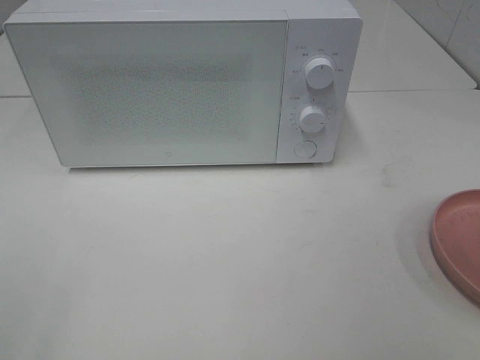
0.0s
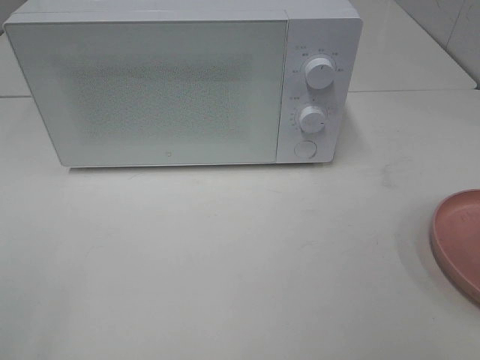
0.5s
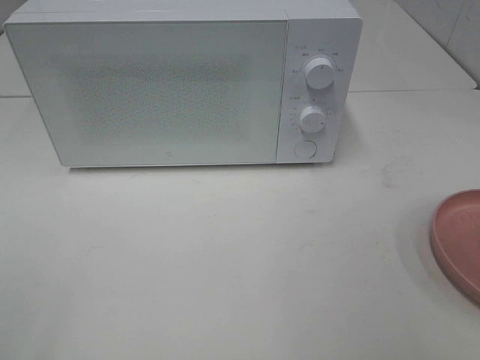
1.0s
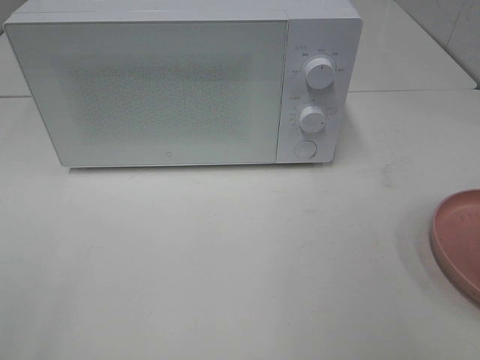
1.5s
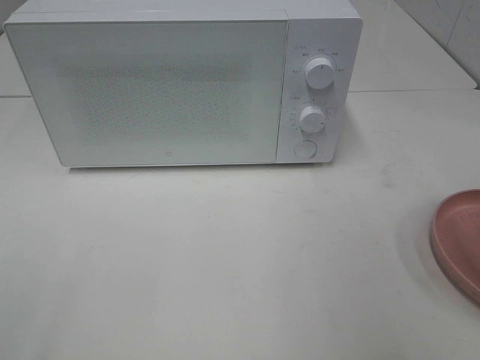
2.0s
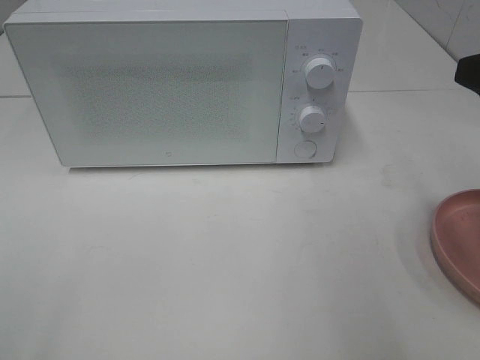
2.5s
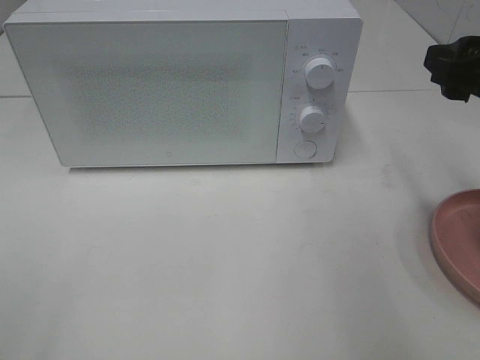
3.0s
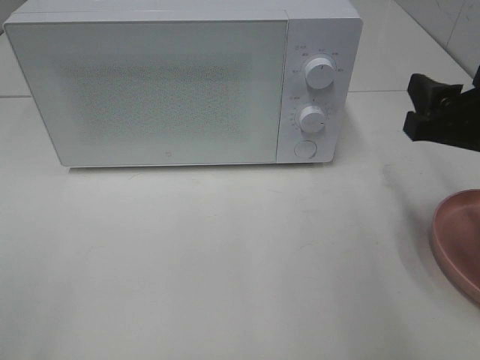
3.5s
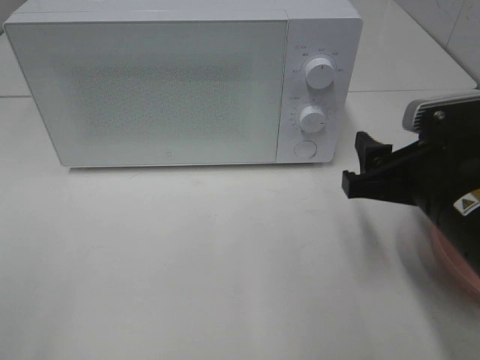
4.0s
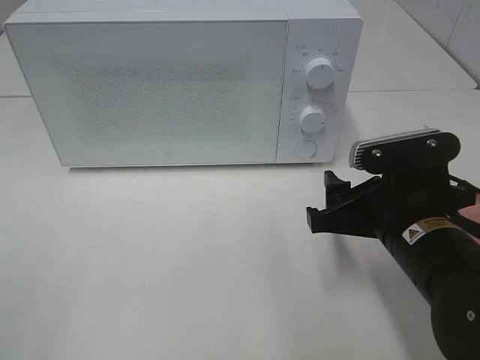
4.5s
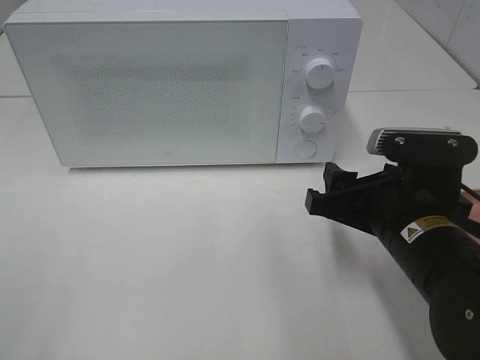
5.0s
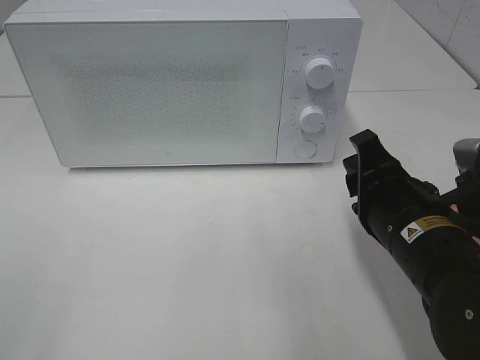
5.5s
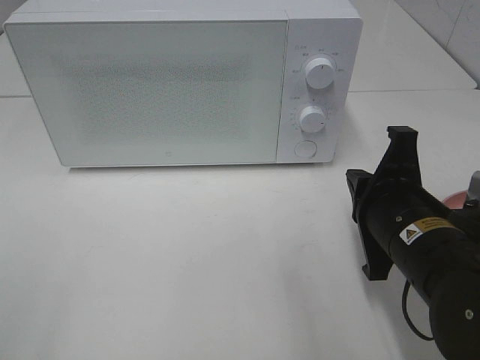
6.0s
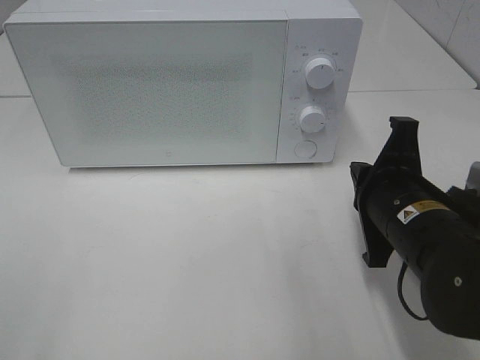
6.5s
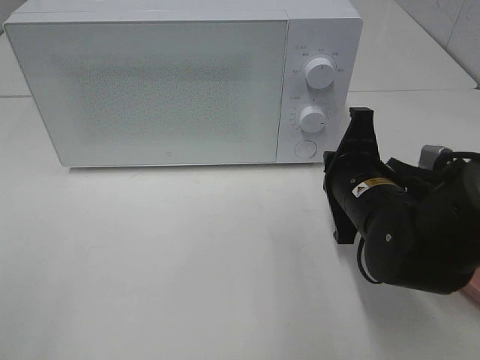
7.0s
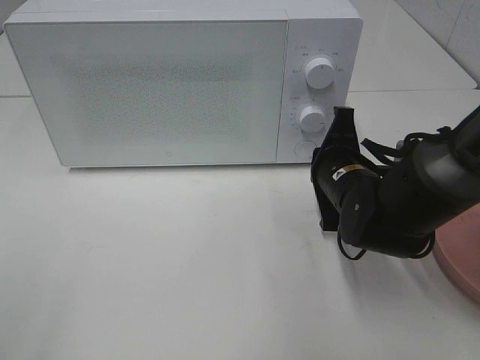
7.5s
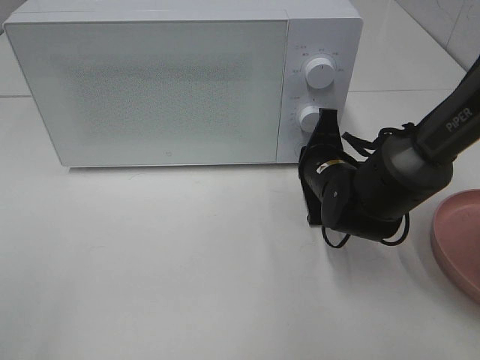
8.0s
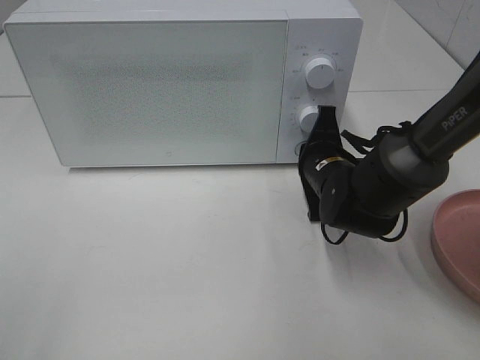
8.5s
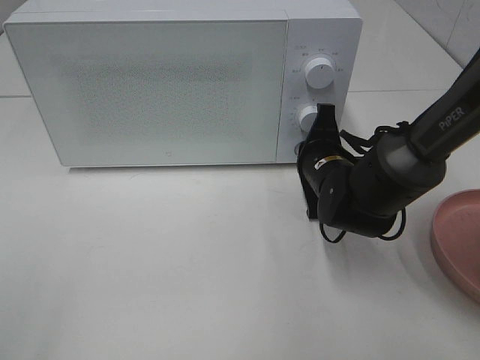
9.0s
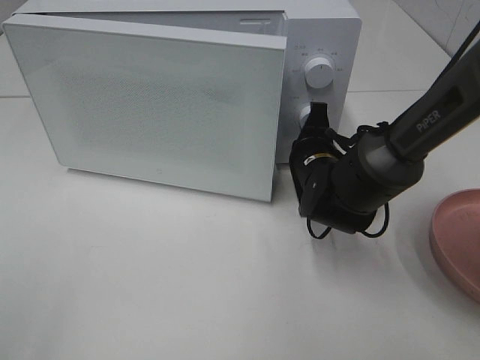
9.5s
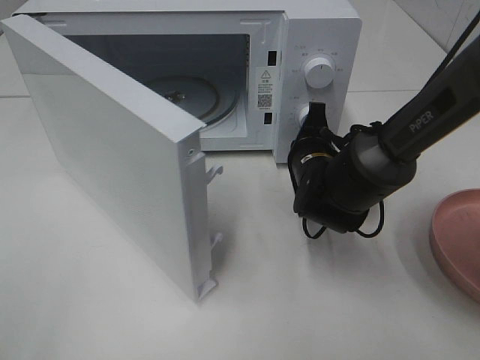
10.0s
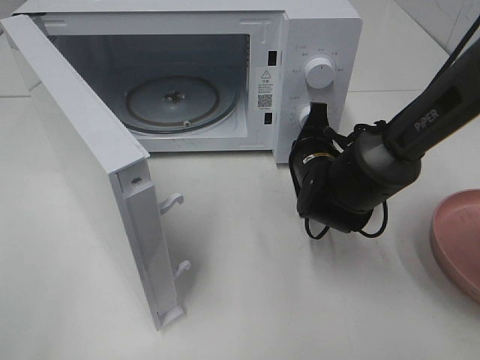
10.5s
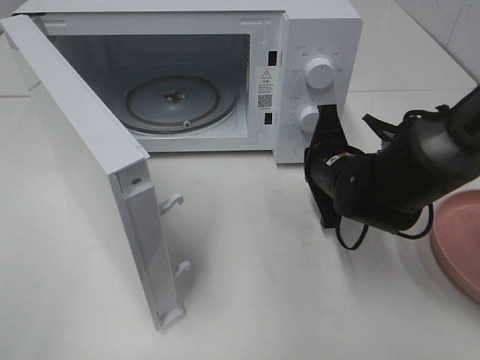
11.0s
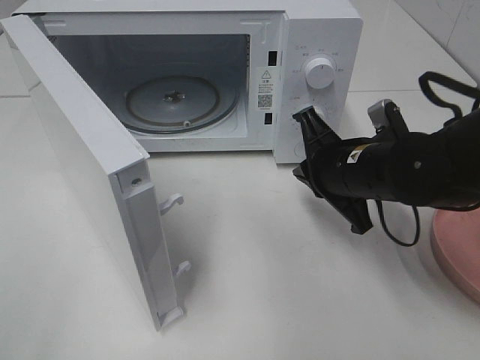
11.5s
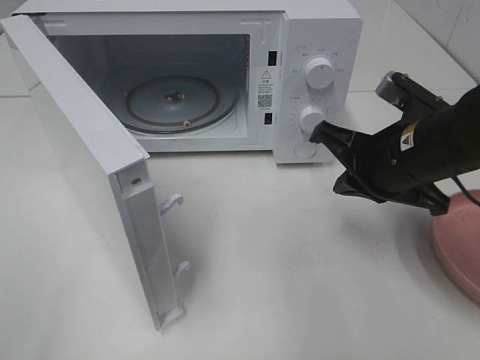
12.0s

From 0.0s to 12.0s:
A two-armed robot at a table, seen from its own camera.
Task of the whole recording: Heat the burger.
Step, from 0.0s to 11.0s: Right hand: press the switch.
From 2.0s to 4.0s: The right gripper moves downward, to the left and forward, about 15 cm.
From 4.0s to 6.0s: The right gripper closes.
From 6.0s to 8.0s: The right gripper shifts roughly 15 cm forward and downward.
From 10.0s to 12.0s: The right gripper heads upward, backward and to the right, covering about 15 cm.

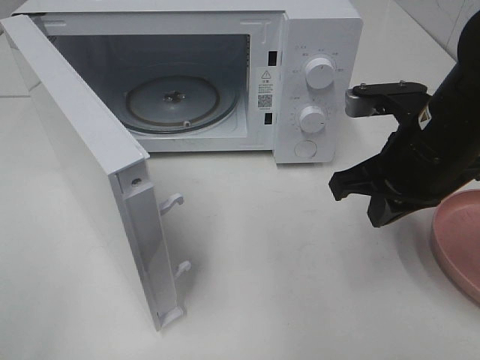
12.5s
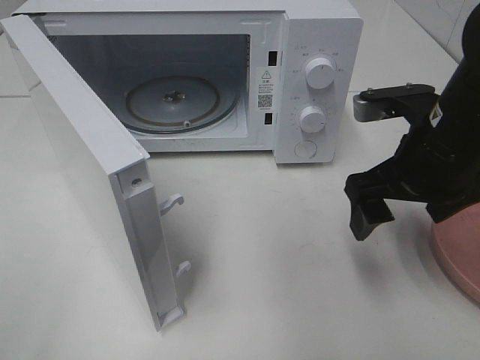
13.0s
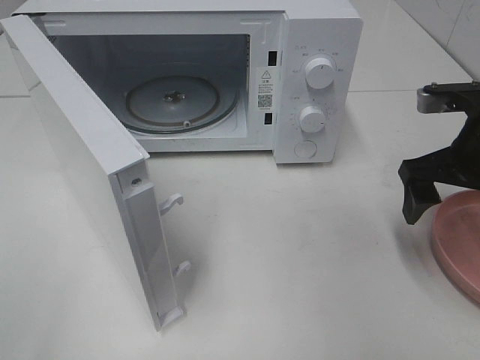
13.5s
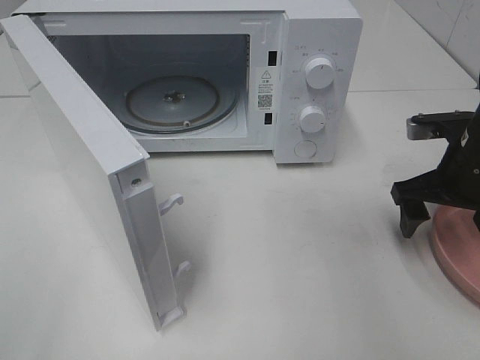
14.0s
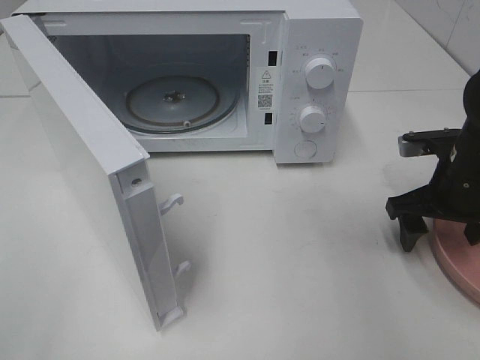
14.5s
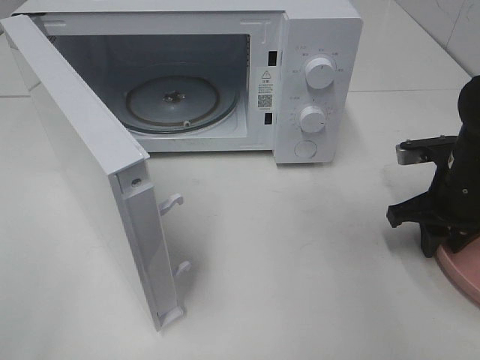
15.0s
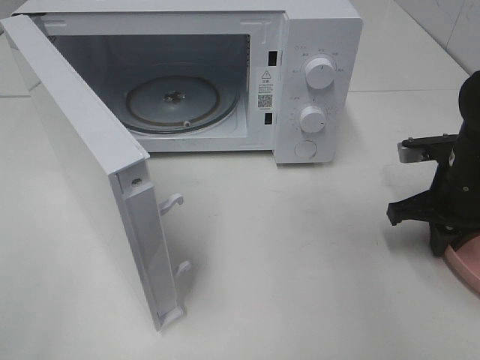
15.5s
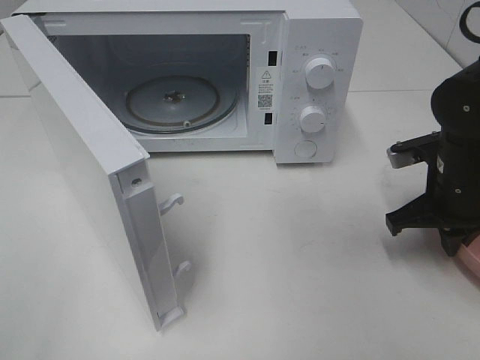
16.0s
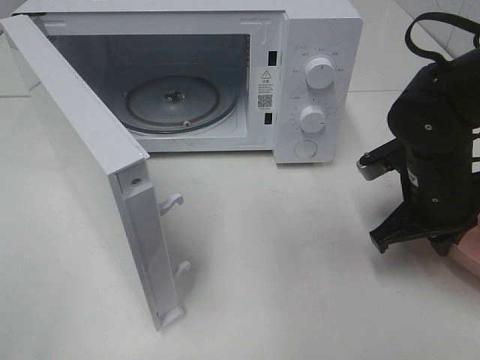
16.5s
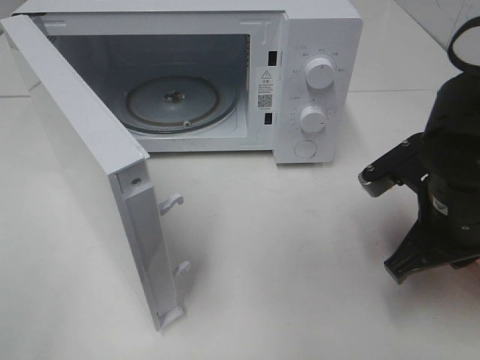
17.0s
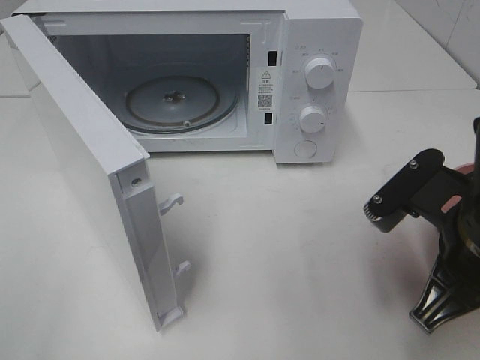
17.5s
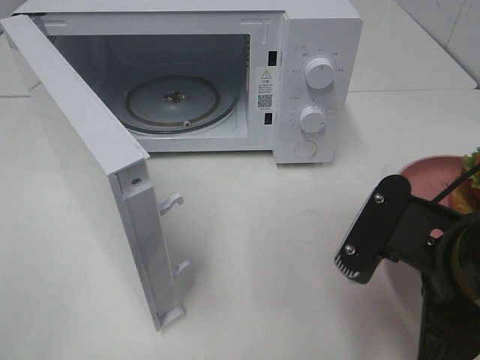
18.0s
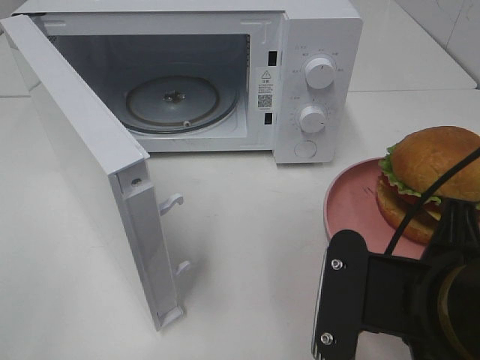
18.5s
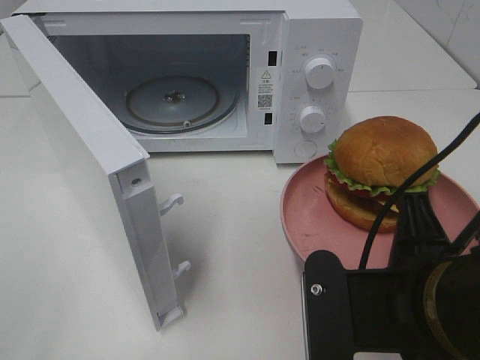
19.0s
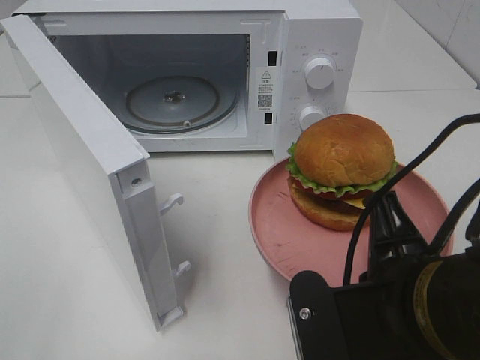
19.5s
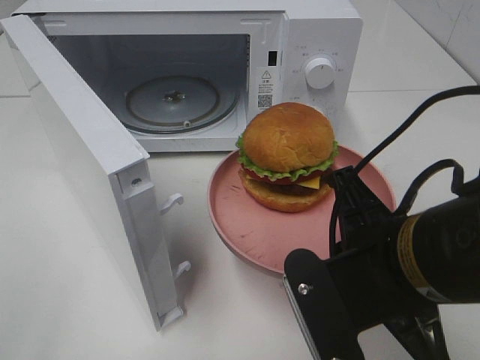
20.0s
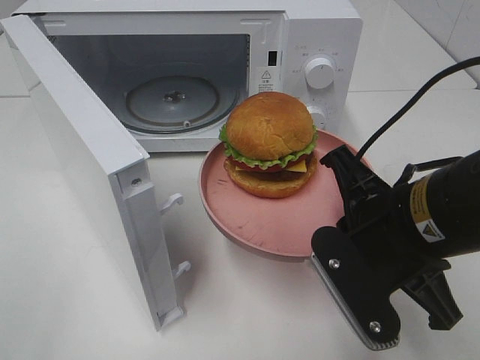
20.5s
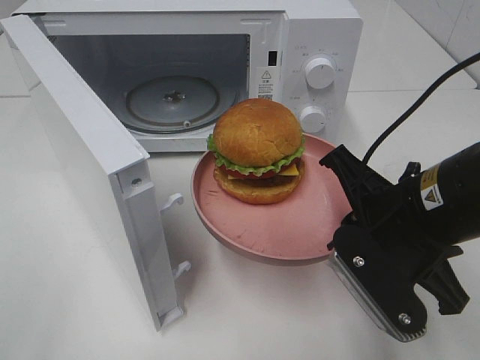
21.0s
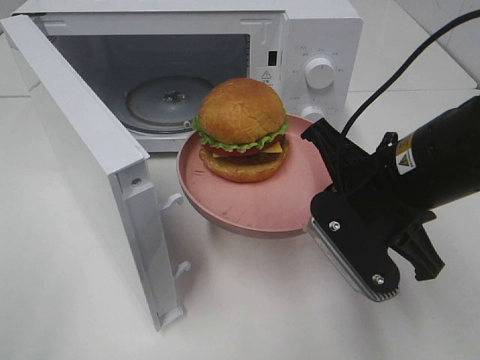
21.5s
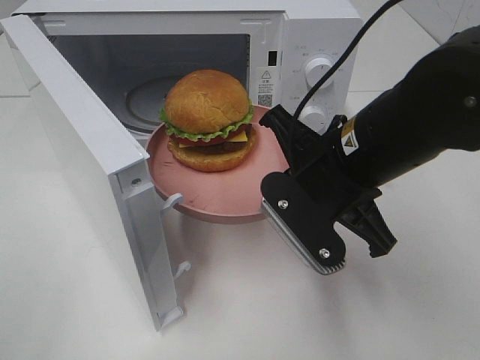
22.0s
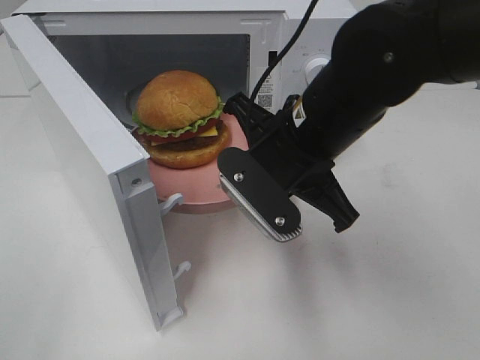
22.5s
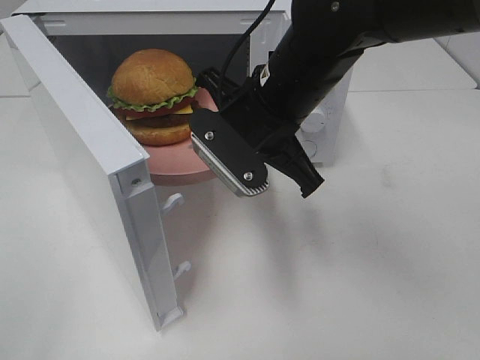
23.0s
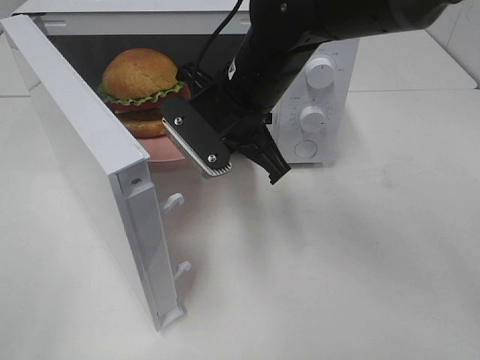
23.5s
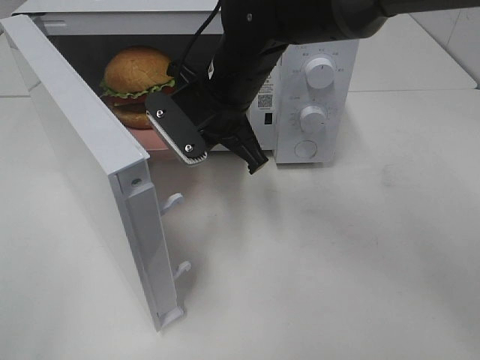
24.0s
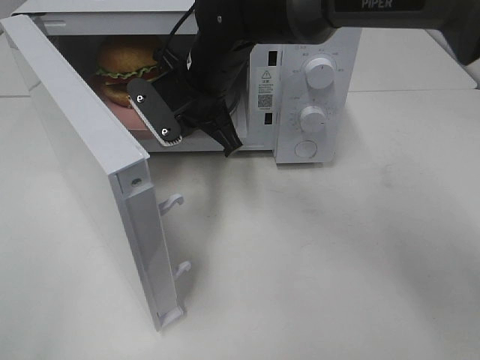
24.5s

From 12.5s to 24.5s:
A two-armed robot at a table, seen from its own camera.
Task of the whole recording: Heat the burger.
Step, from 12.5s to 16.0s: Right hand: grab the plate with the hamburger.
From 12.5s to 14.5s: The right gripper travels to the right and downward by roughly 10 cm, and opens.
From 14.5s to 16.5s: The right gripper heads to the left, covering about 5 cm, and closes its fingers.
From 16.5s to 18.5s: The right gripper is displaced backward and to the left by approximately 20 cm.
From 18.5s to 20.5s: The right gripper shifts approximately 10 cm forward.
From 20.5s to 22.5s: The right gripper shifts about 10 cm forward and to the left.
From 22.5s to 24.5s: The right gripper goes approximately 15 cm forward and to the left.

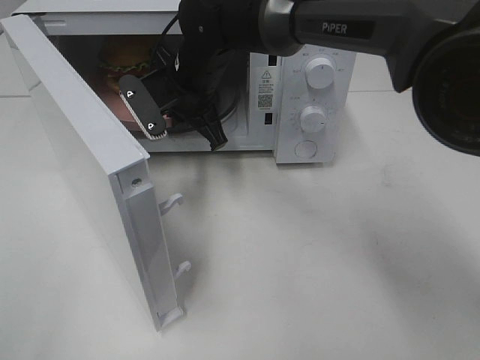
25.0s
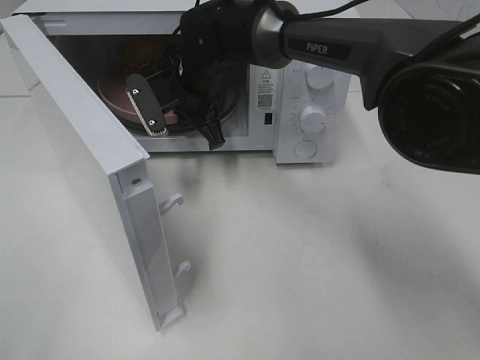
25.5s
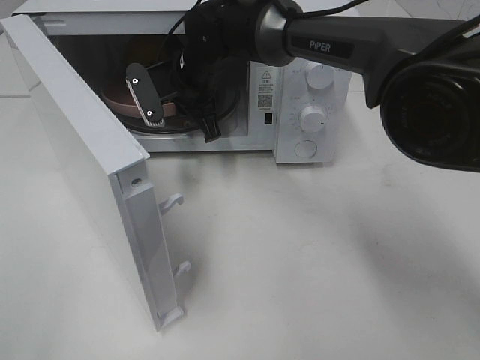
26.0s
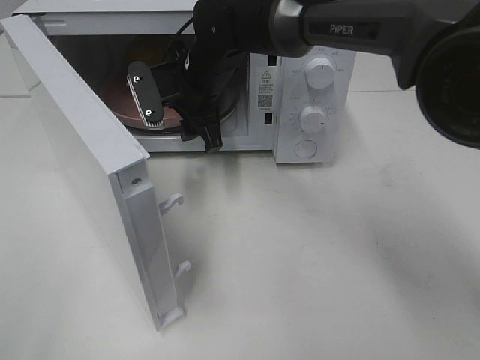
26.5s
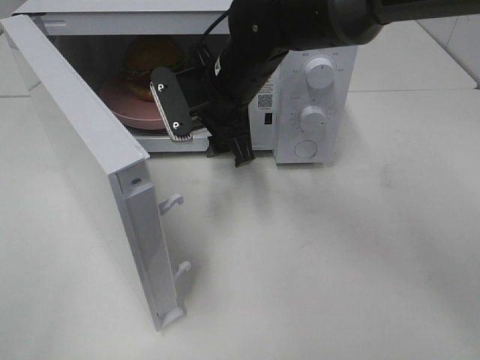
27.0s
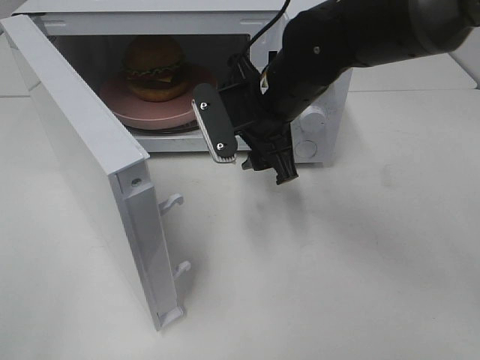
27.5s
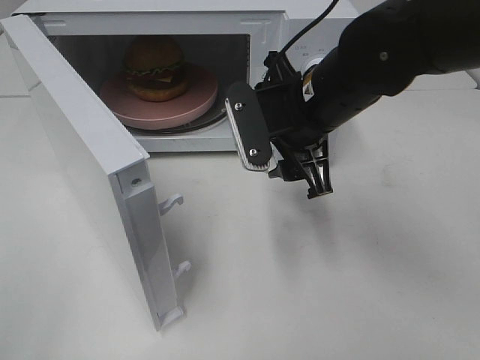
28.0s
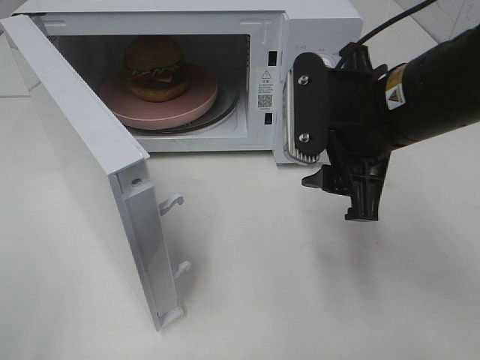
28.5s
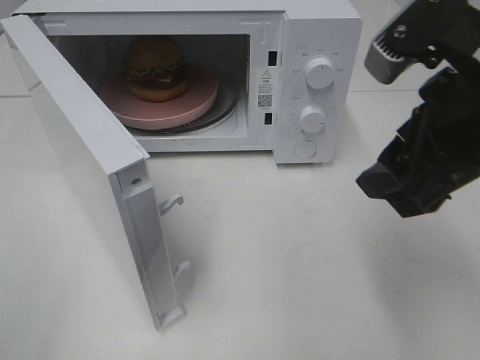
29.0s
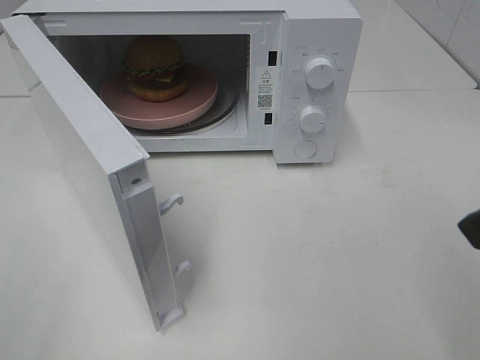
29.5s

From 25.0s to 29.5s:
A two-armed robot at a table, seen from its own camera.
Task of the whole recording: Heat the burger.
From 25.0s to 27.0s: The right gripper shifts some 5 cm to the right, and opens.
From 27.0s to 29.5s: The right gripper is displaced backward, to the right and upward by some 35 cm.
